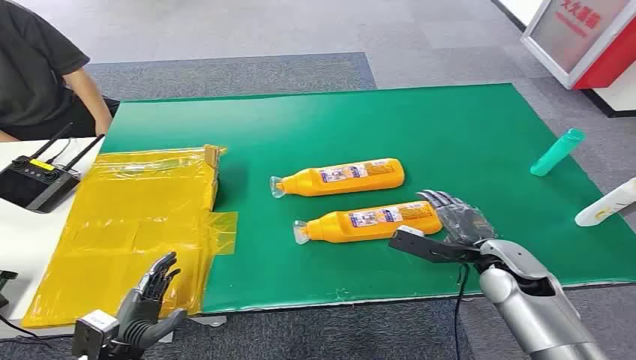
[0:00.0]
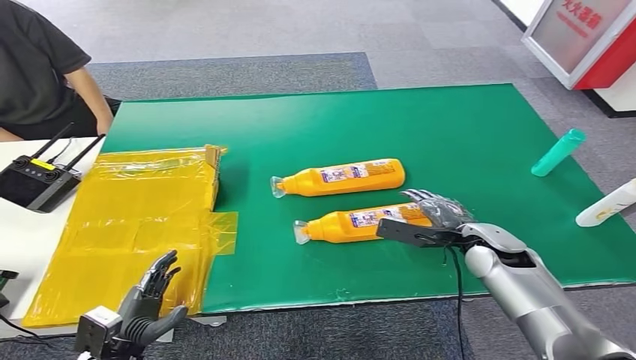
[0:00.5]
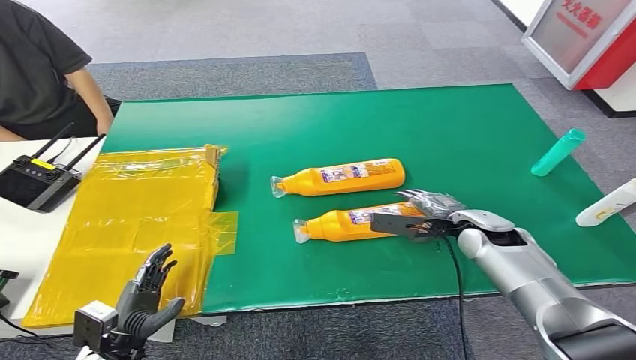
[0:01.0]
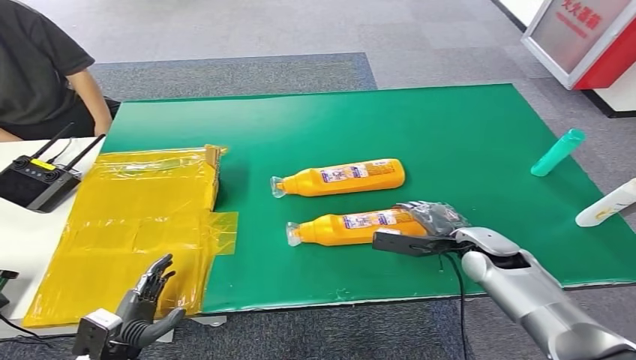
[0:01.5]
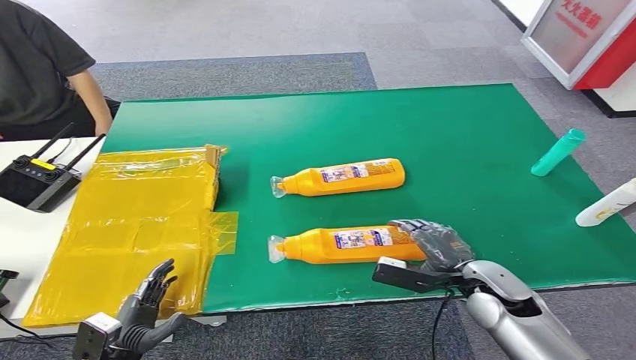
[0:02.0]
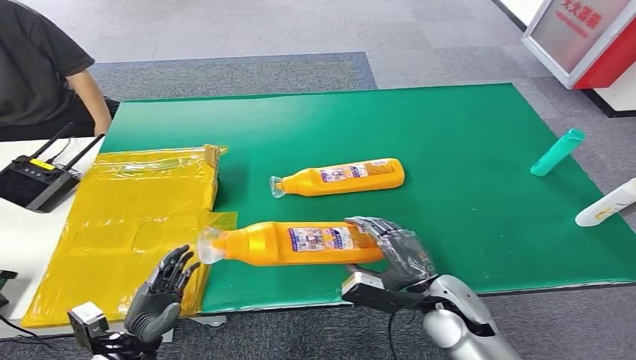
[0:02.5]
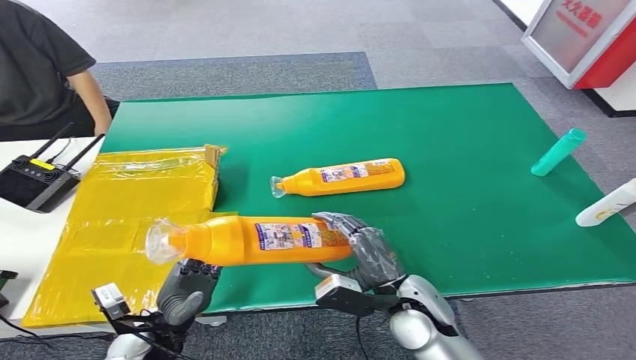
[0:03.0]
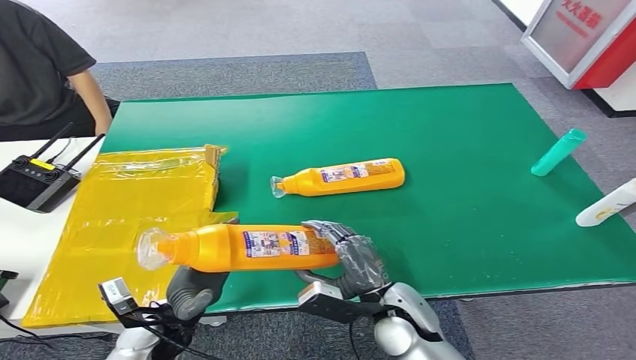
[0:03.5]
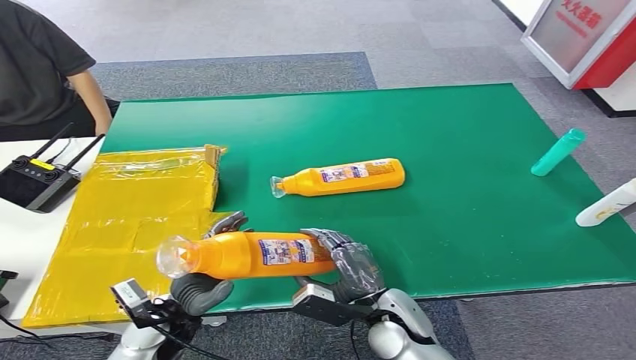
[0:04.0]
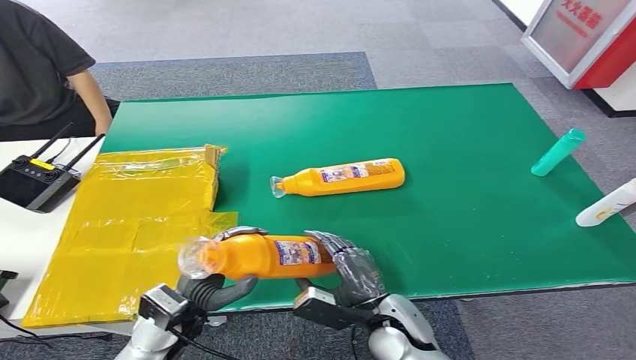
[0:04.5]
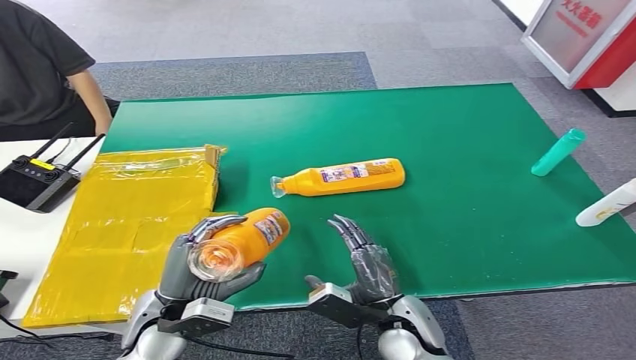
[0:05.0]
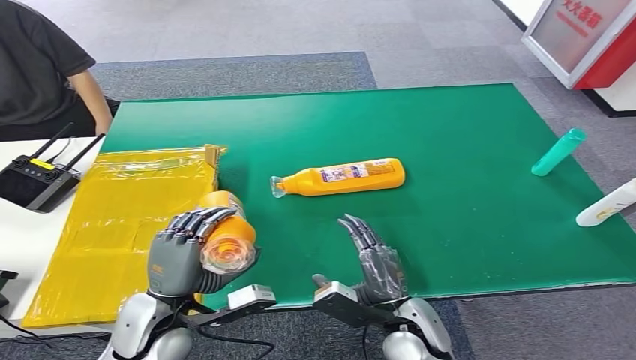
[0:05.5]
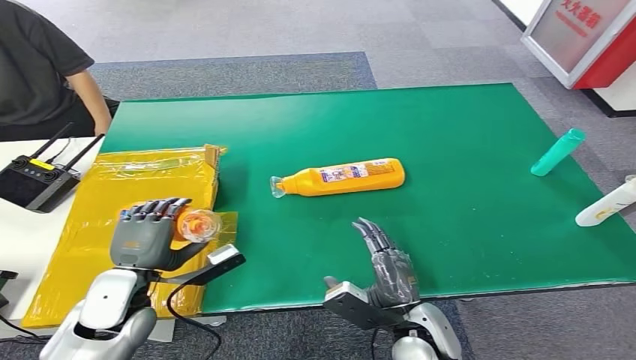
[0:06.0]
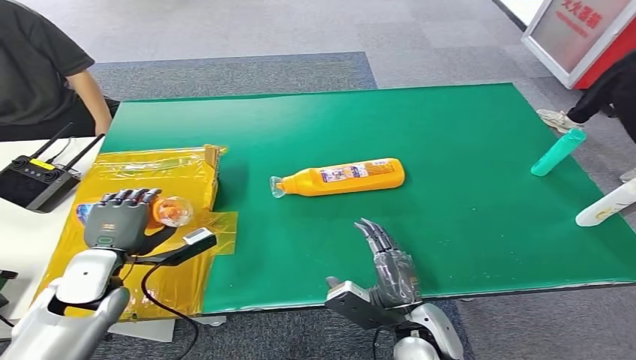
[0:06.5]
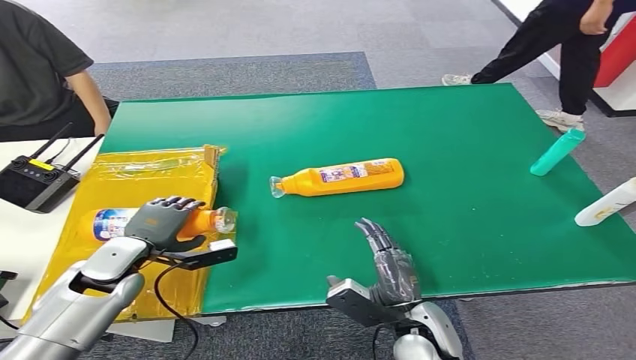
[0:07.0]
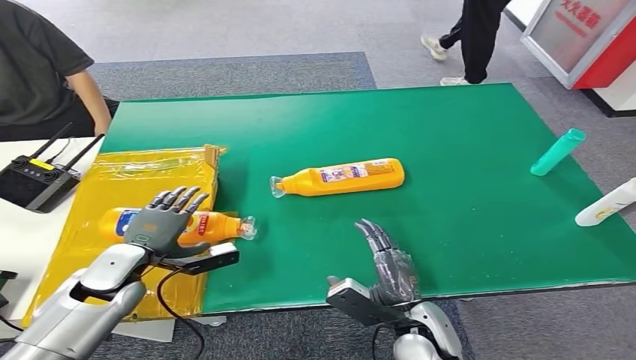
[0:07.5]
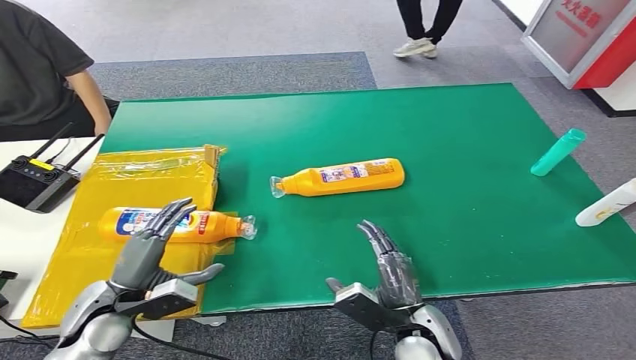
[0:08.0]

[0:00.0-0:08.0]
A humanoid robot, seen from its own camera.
Step, 0:00.0 to 0:02.5: Pick up the bottle from the table.
Step, 0:04.5 to 0:08.0: Turn the bottle to the front side.
0:02.0 to 0:04.0: The right hand is displaced to the left by roughly 15 cm. The left hand heads to the right, forward and upward, covering some 15 cm.
0:04.0 to 0:06.0: The left hand shifts roughly 10 cm upward and to the left.
0:06.0 to 0:08.0: The left hand reaches some 5 cm forward, then returns.

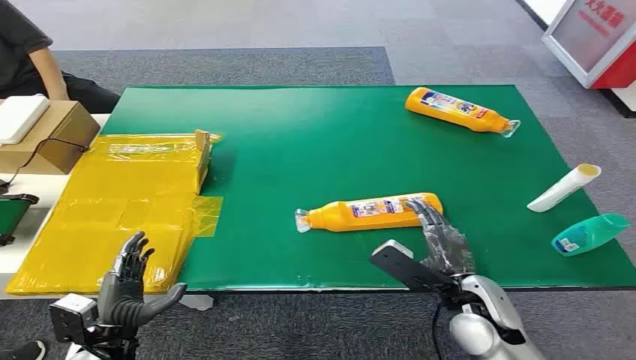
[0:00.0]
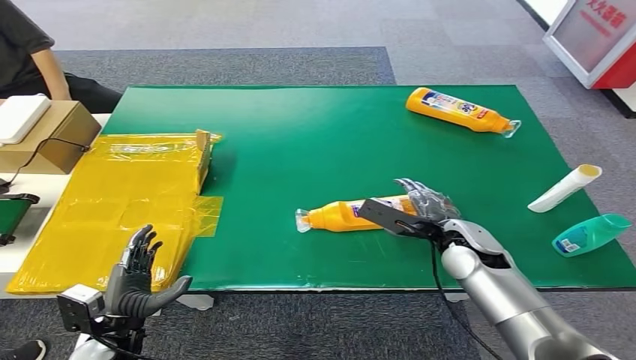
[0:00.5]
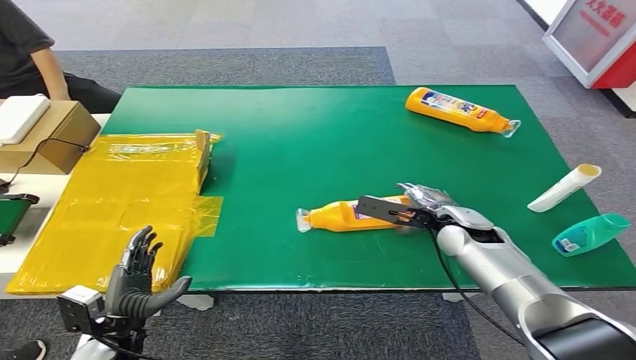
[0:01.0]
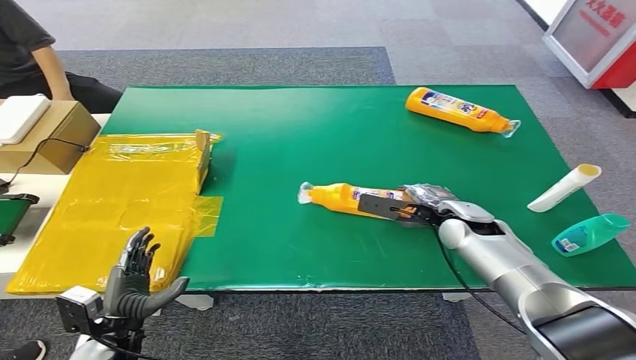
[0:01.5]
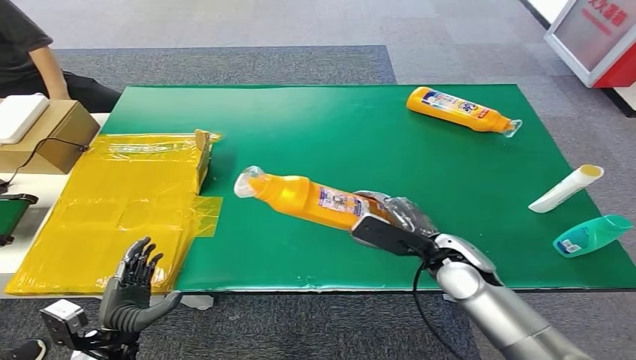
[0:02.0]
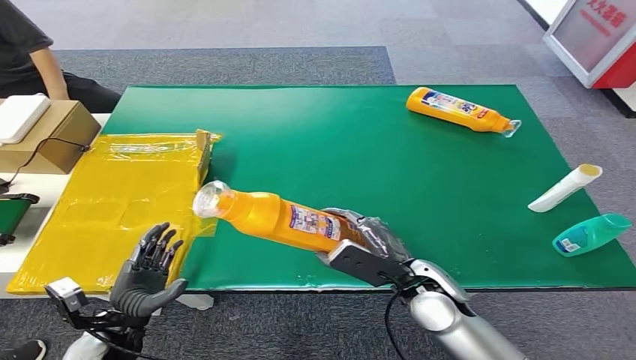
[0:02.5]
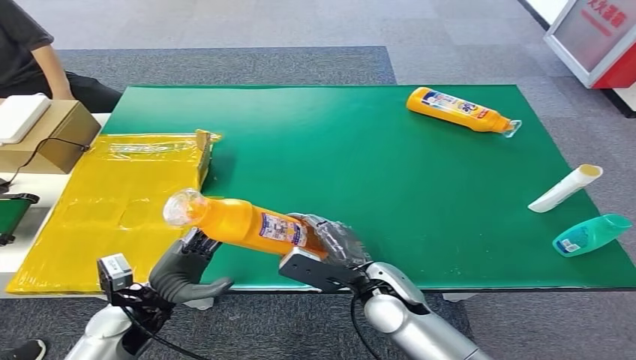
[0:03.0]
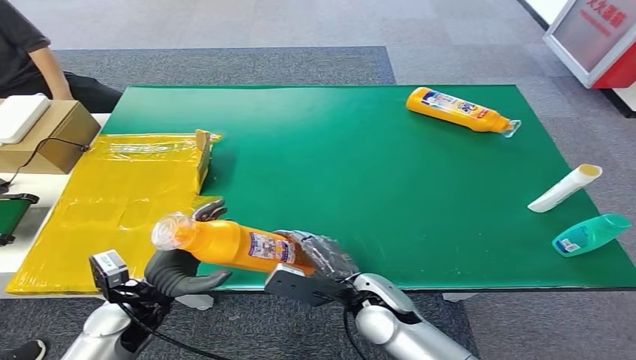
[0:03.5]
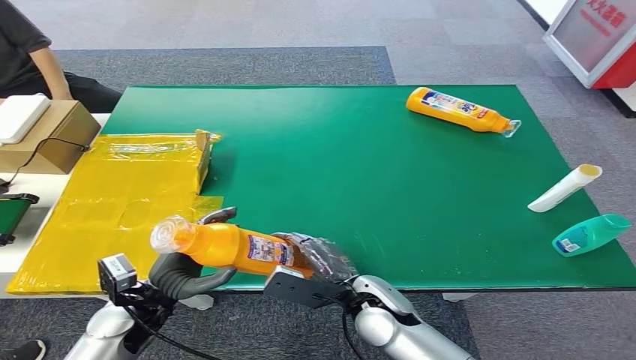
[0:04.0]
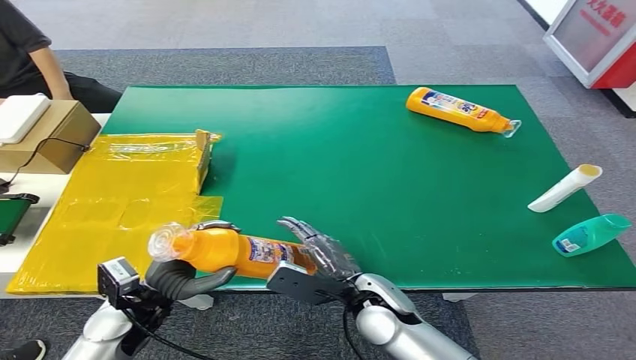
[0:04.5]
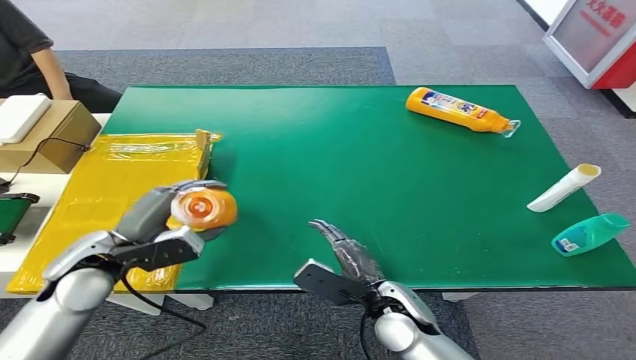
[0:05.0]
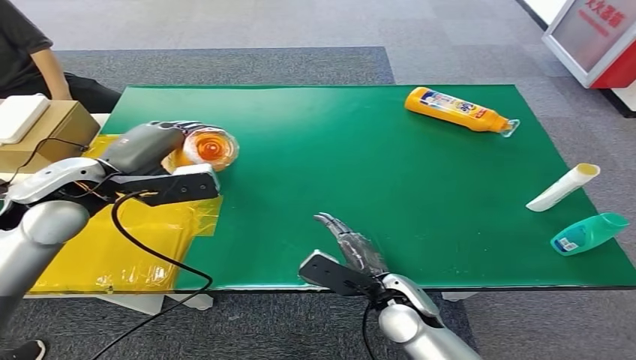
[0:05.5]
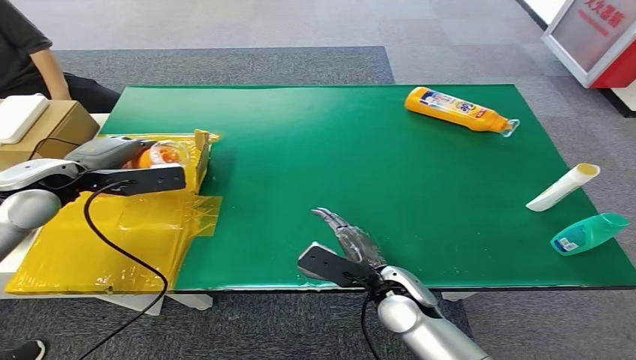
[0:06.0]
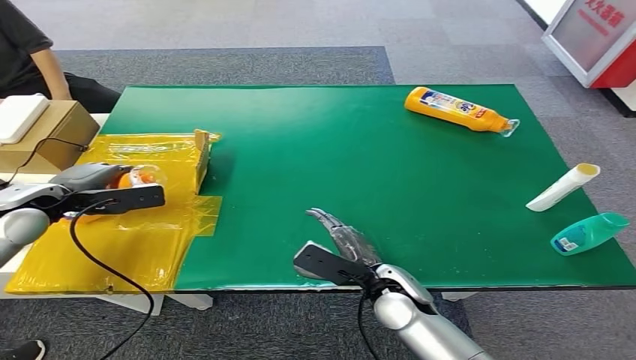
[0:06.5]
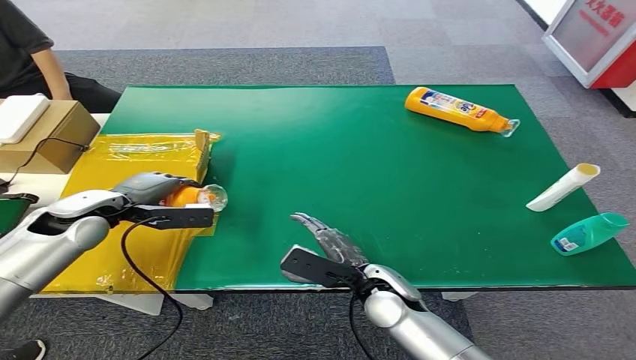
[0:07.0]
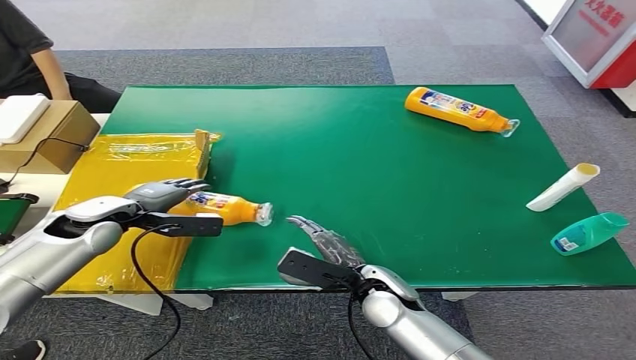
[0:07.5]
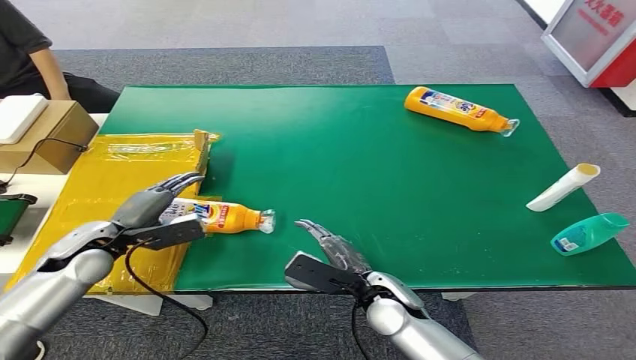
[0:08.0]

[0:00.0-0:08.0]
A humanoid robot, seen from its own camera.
Step, 0:00.0 to 0:02.0: Pick up the bottle from the table.
Step, 0:02.5 to 0:08.0: Turn the bottle to the front side.
0:02.0 to 0:04.0: The left hand is displaced upward, forward and to the right by about 10 cm. The right hand moves to the left and backward, roughly 15 cm.
0:04.0 to 0:06.0: The left hand goes approximately 25 cm upward, forward and to the left.
0:06.0 to 0:08.0: The left hand shifts about 15 cm downward.

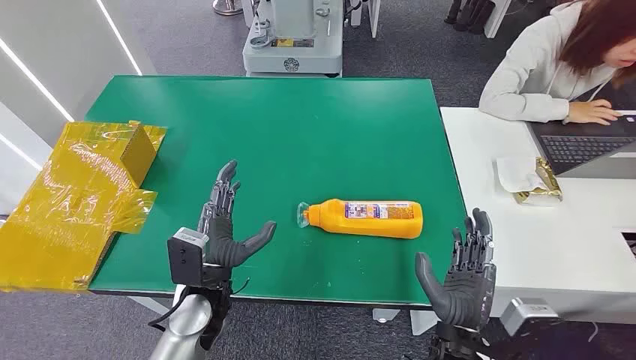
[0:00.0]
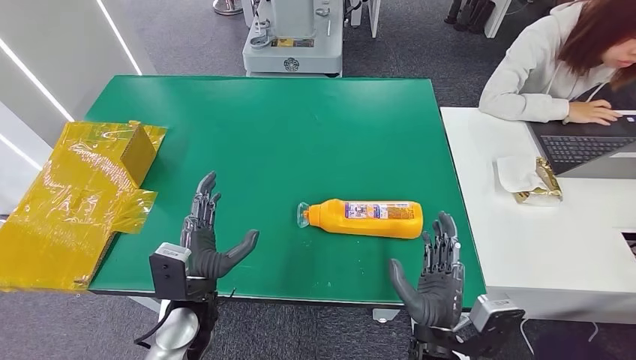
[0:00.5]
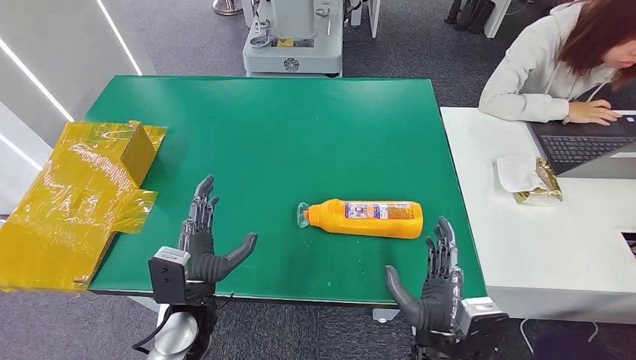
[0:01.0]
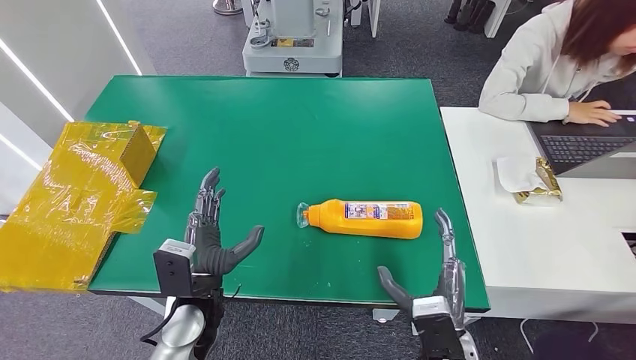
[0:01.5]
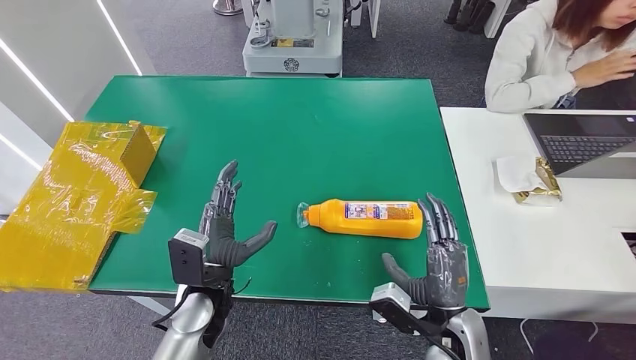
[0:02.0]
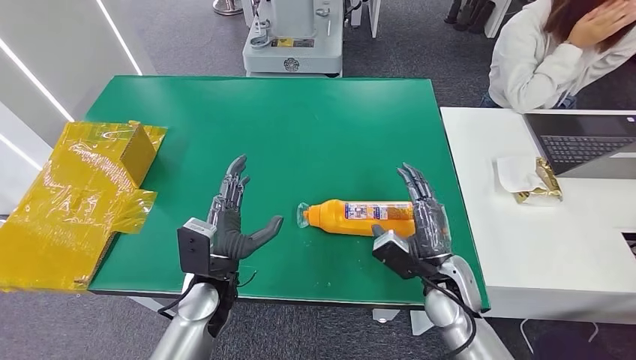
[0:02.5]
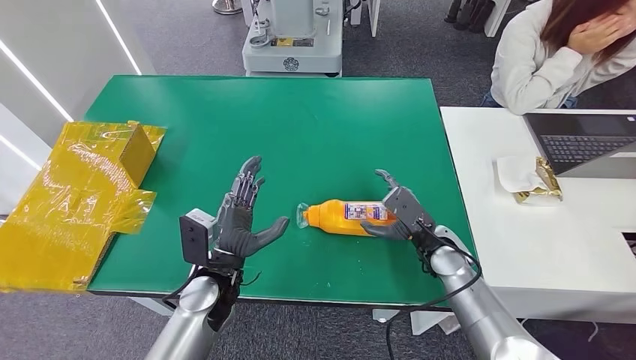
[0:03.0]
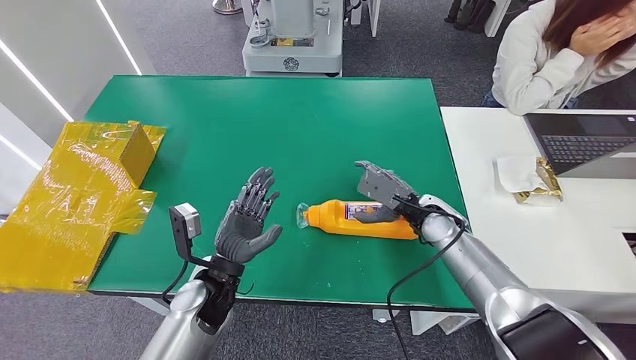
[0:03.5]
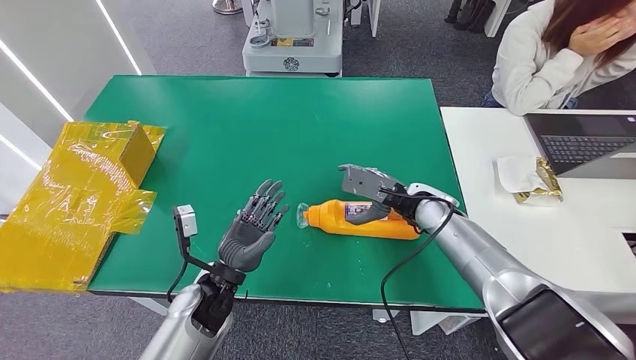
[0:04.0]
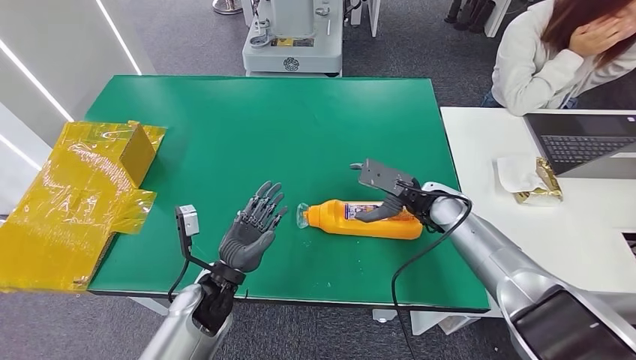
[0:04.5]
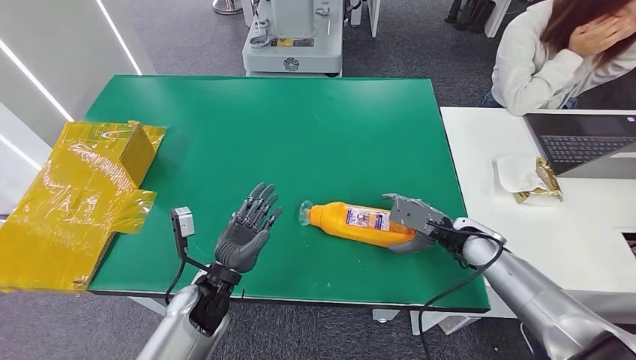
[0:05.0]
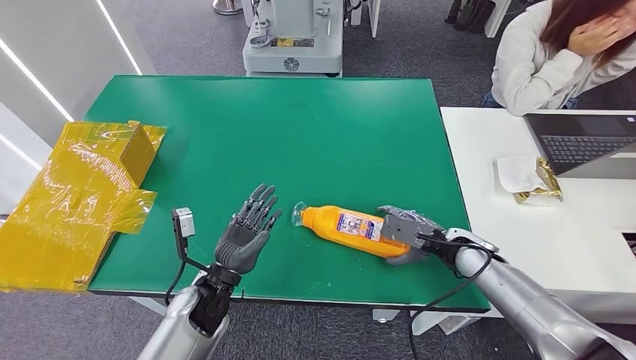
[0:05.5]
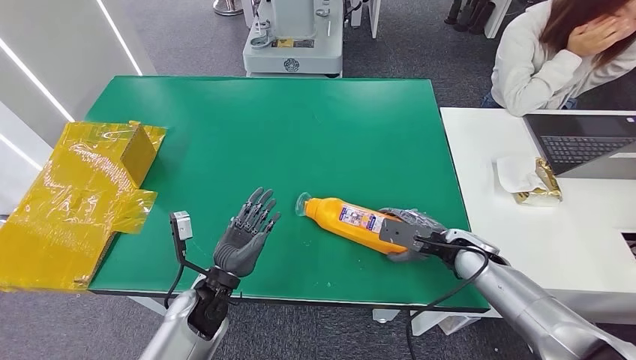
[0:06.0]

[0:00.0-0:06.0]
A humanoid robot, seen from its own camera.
0:02.0 to 0:04.0: The right hand travels forward by some 20 cm.
0:04.0 to 0:06.0: The right hand is displaced to the right, backward and downward by some 15 cm.
